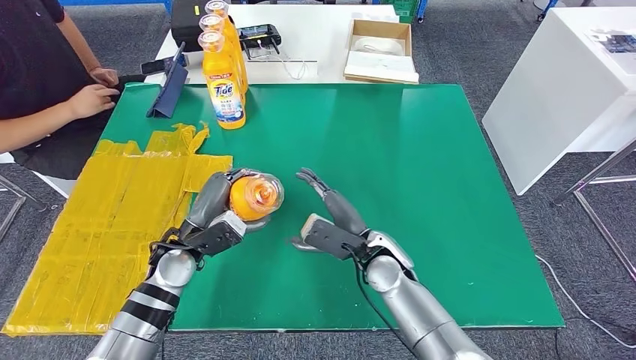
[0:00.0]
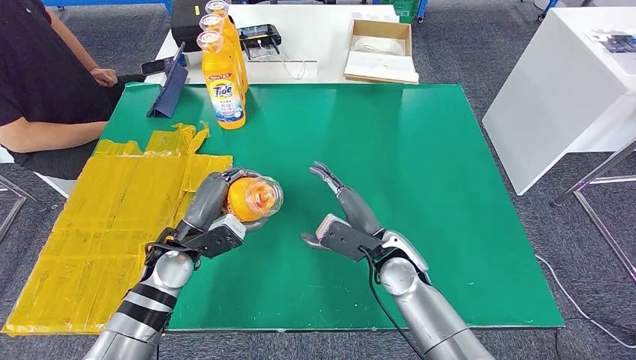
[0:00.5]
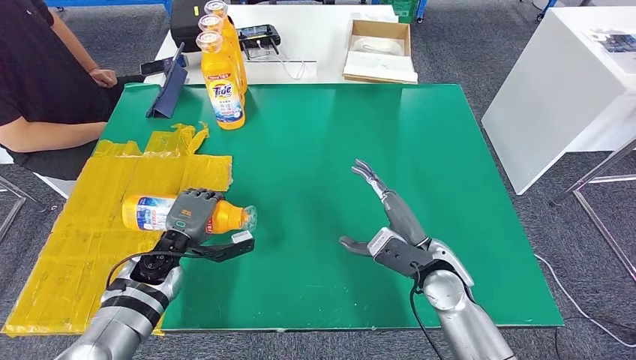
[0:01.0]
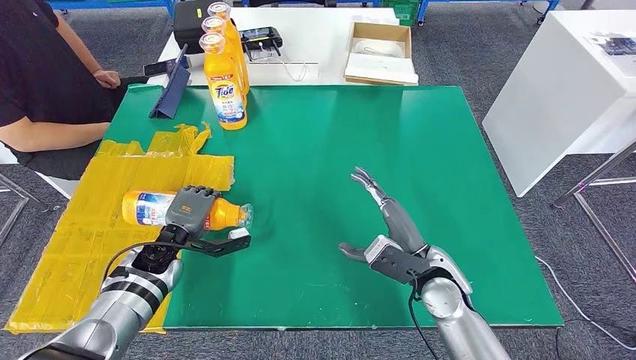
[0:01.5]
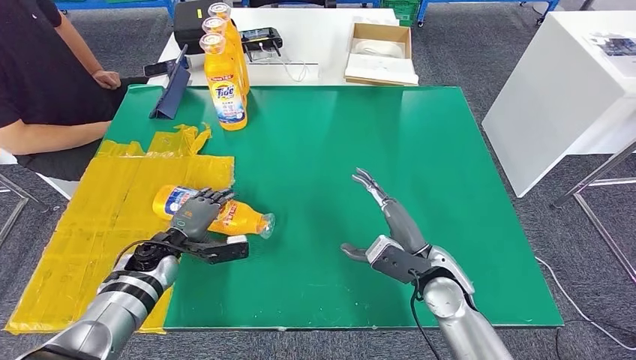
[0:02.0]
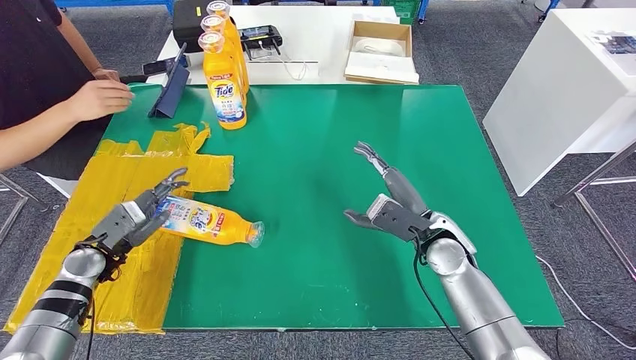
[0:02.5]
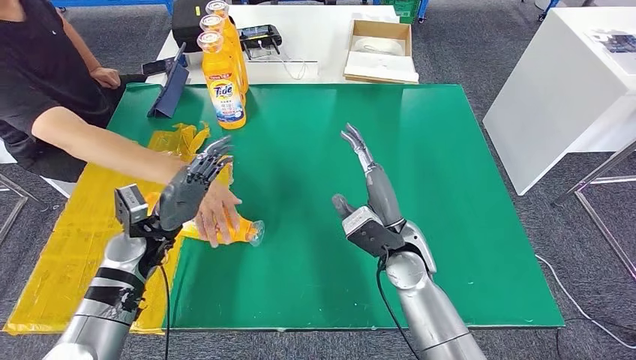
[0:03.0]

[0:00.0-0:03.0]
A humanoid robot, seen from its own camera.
Step, 0:00.0 to 0:03.0: Flip the fast-moving consumer goods bottle to the front side.
